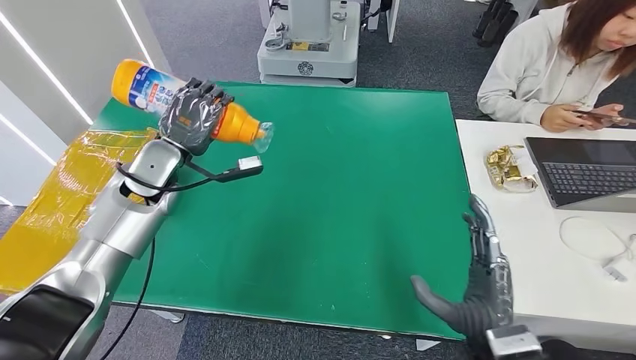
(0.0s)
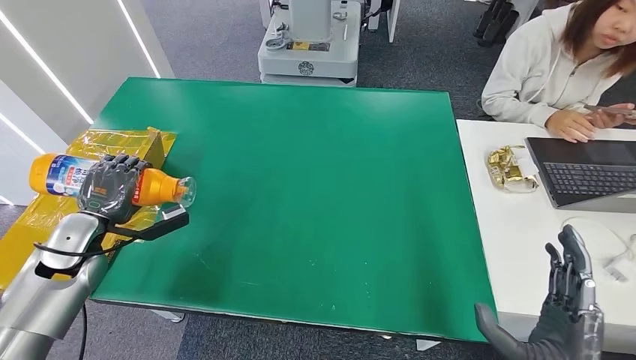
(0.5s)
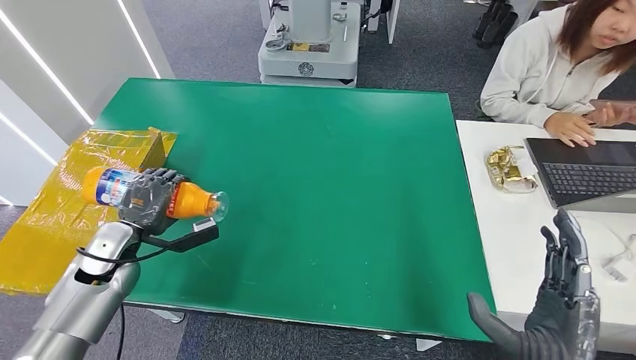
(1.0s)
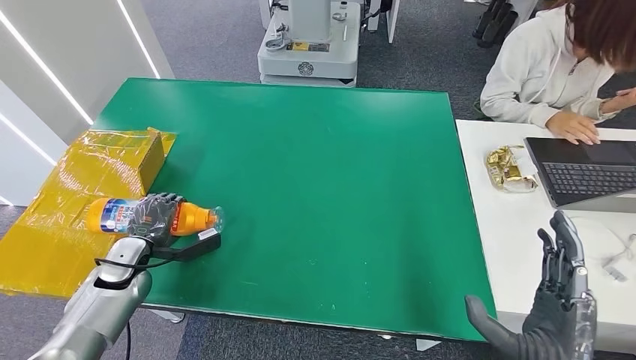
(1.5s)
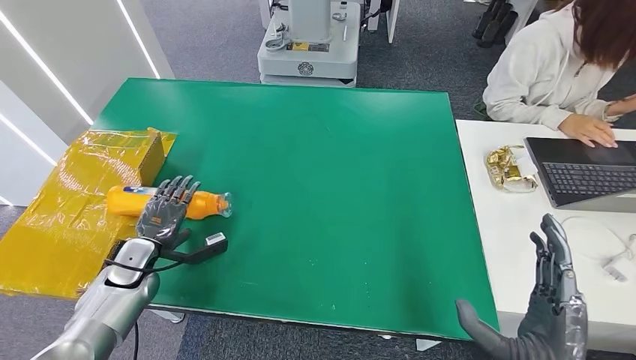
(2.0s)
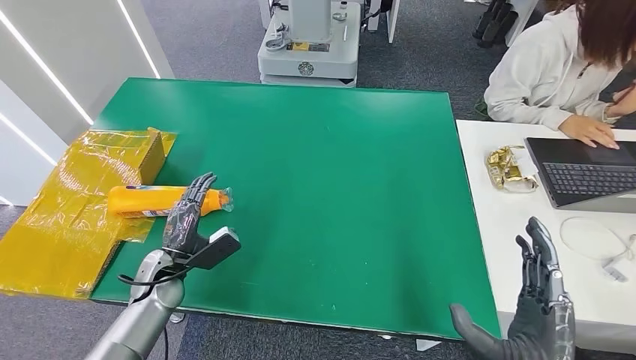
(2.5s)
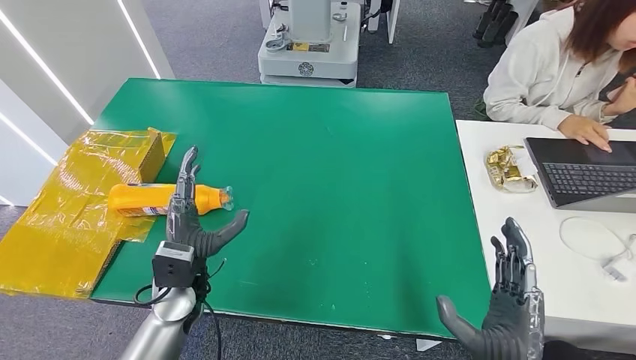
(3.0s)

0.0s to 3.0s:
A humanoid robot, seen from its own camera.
Step, 0.0s to 3.0s: Turn the bottle to the front side.
1.5s to 3.0s: The left hand is displaced to the right by about 15 cm.
